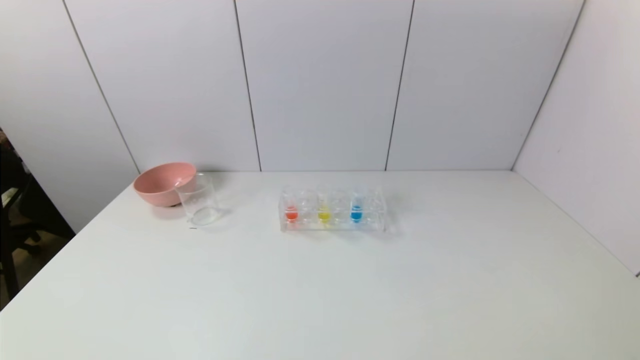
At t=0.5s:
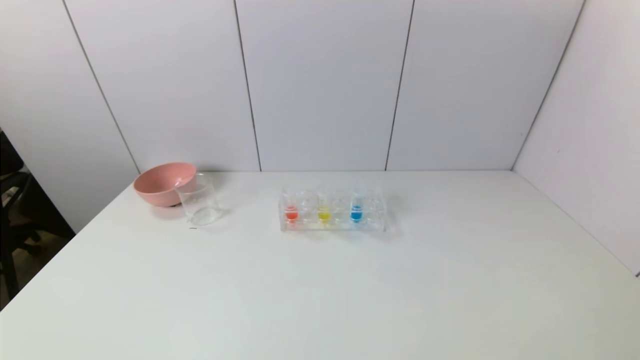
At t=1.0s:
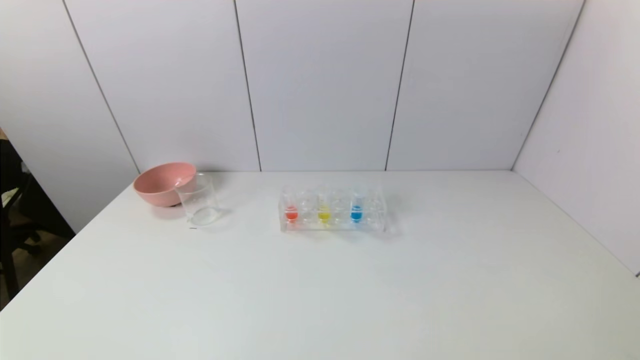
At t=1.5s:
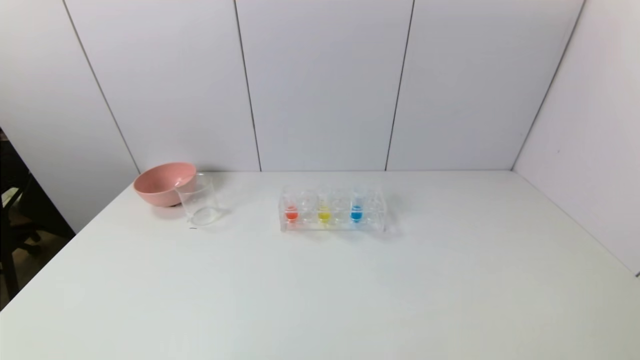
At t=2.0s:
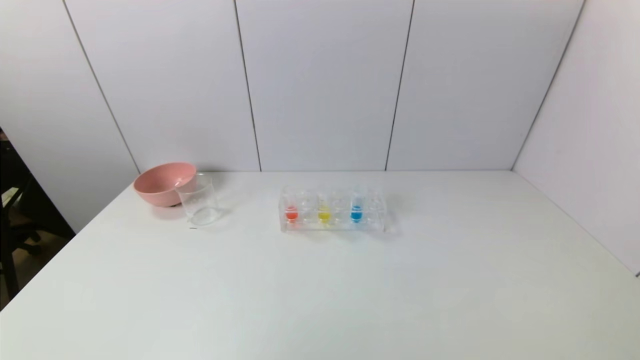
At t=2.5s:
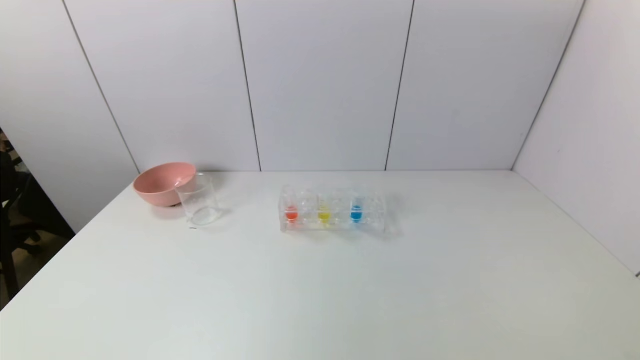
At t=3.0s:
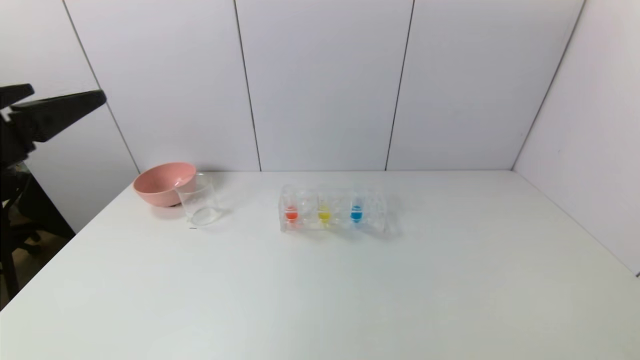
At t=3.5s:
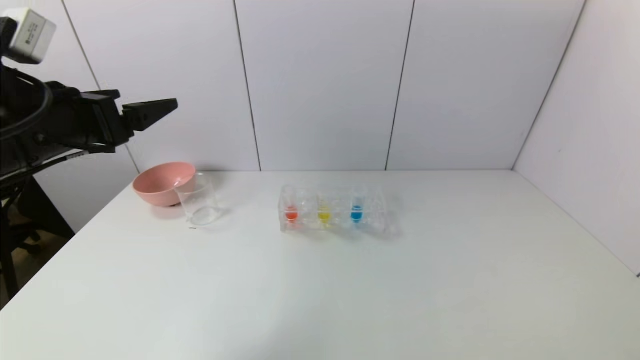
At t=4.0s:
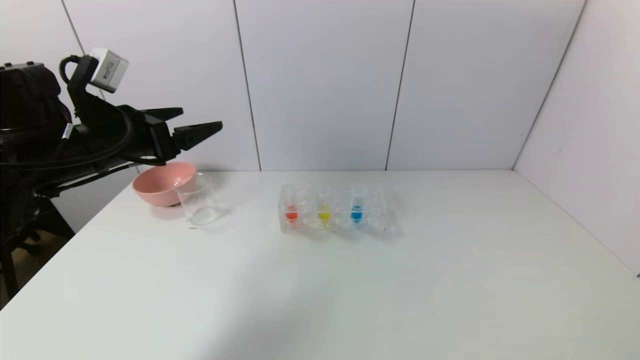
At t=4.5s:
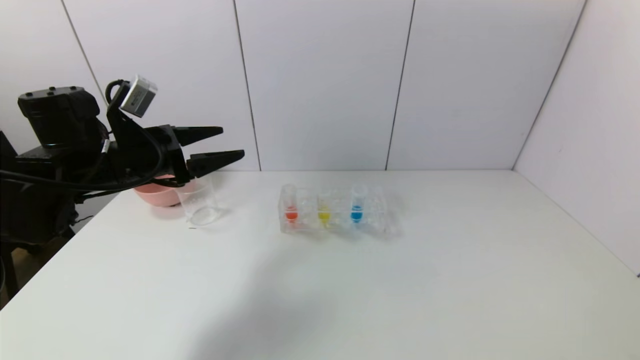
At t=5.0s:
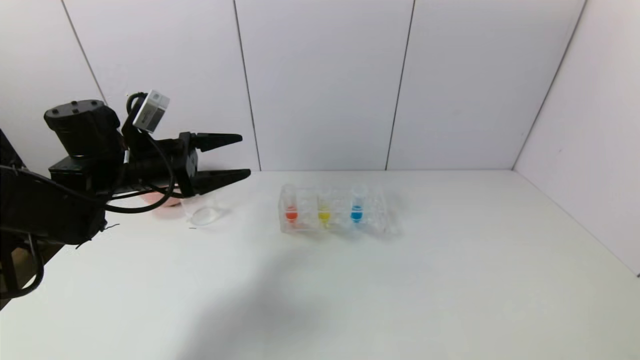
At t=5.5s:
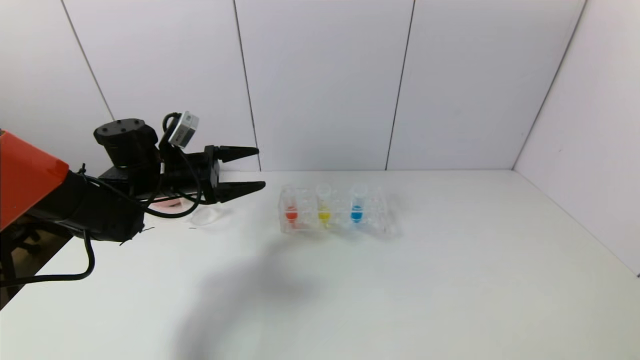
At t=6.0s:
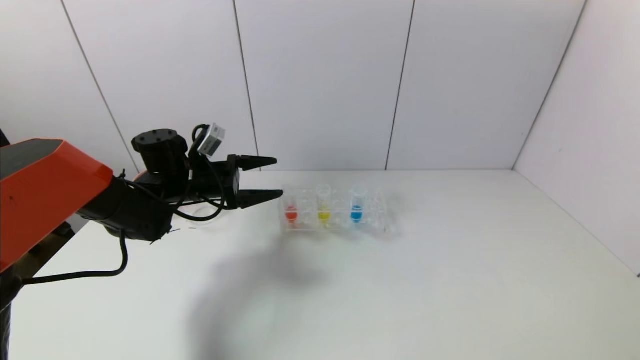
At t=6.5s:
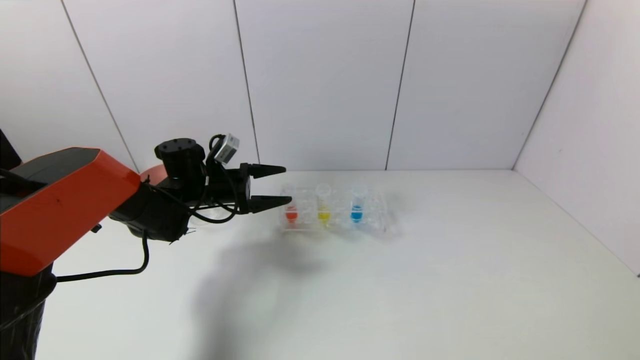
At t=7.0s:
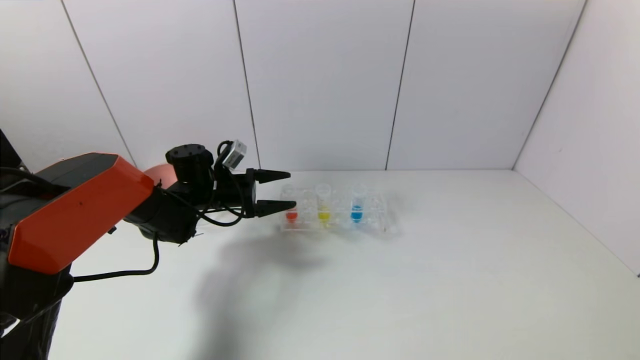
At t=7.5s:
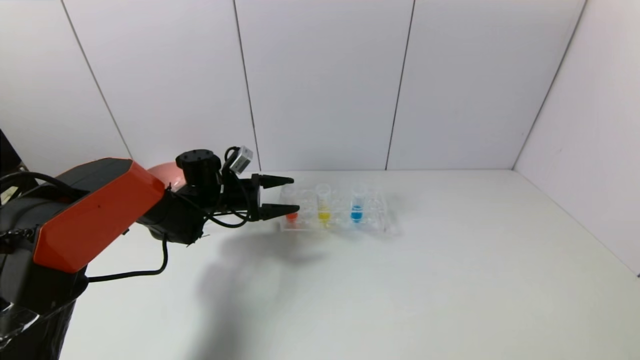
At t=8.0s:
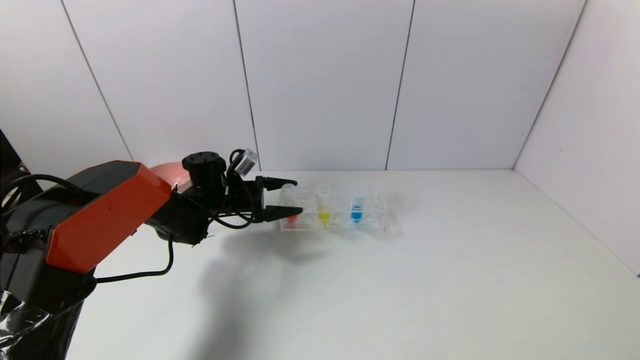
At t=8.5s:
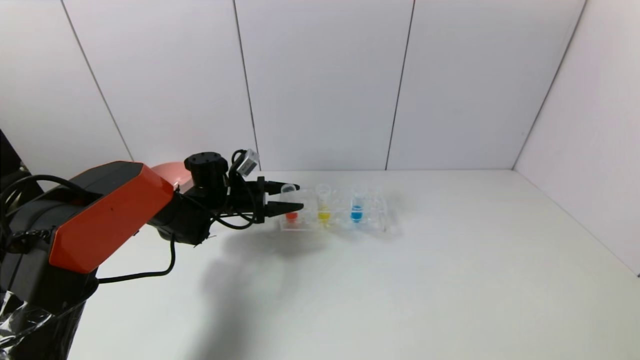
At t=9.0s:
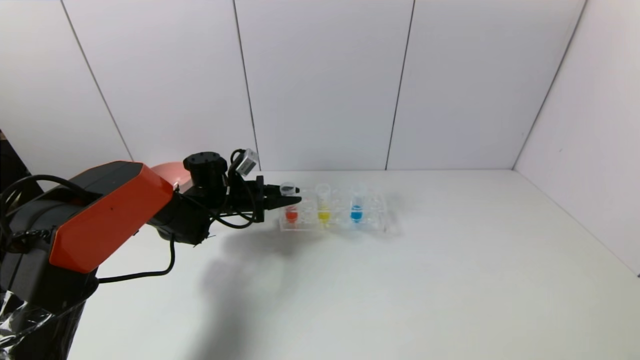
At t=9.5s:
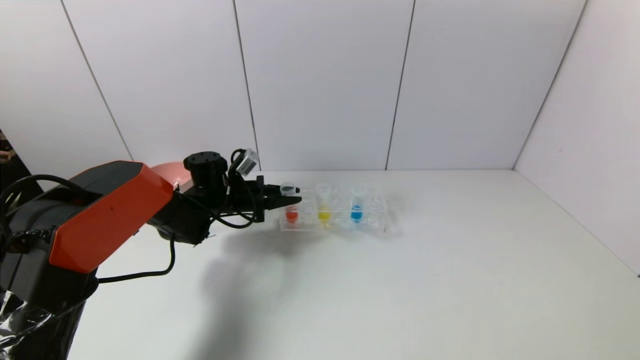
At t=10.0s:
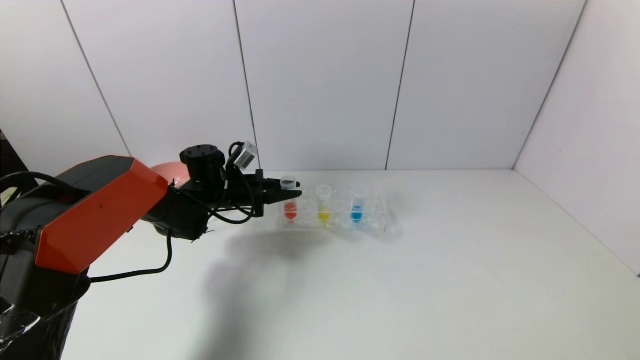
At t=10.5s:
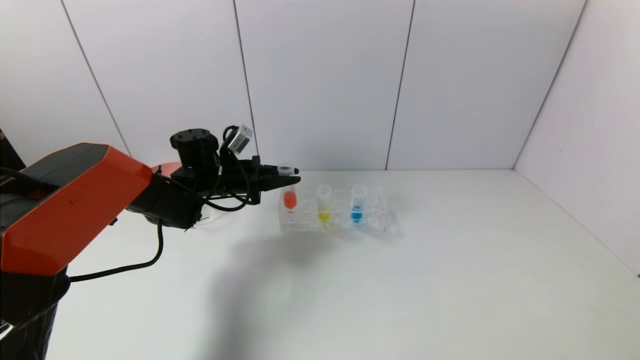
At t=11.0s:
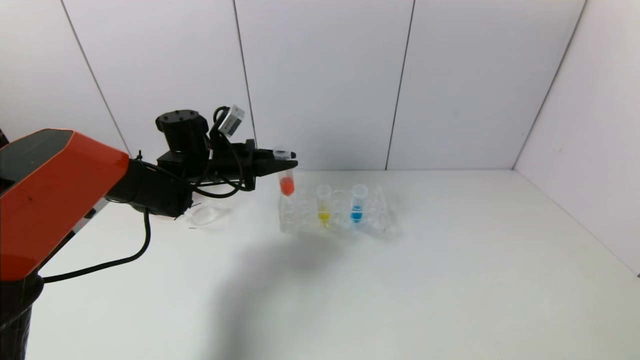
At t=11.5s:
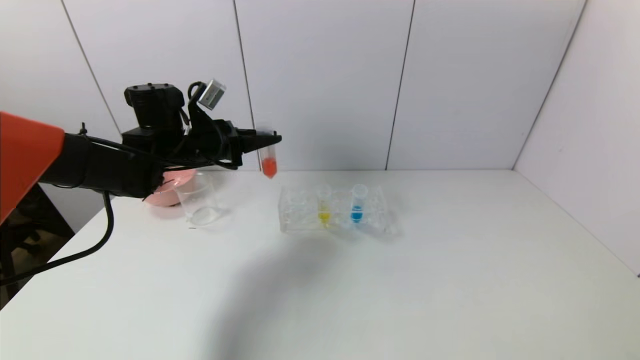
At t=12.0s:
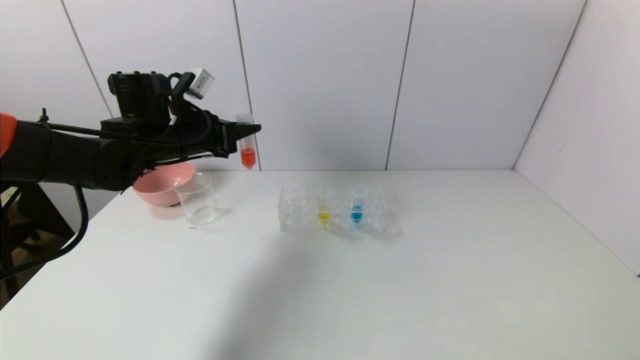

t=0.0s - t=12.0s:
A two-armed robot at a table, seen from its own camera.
Task of the whole recording: pick up the test tube with red pigment and the test tube with blue pigment by grippers and pour them into the container.
Step, t=0.0s - t=9.5s: Grasp the red reagent with the left gripper.
t=2.0s - t=4.0s: The left gripper is displaced forward by approximately 35 cm.
t=4.0s - t=6.0s: The left gripper travels downward and forward by roughly 15 cm.
t=6.0s - t=8.0s: The left gripper is displaced downward by some 5 cm.
t=8.0s - t=10.0s: The left gripper closes its fingers.
t=10.0s - t=12.0s: The left gripper goes some 15 cm upward and backward.

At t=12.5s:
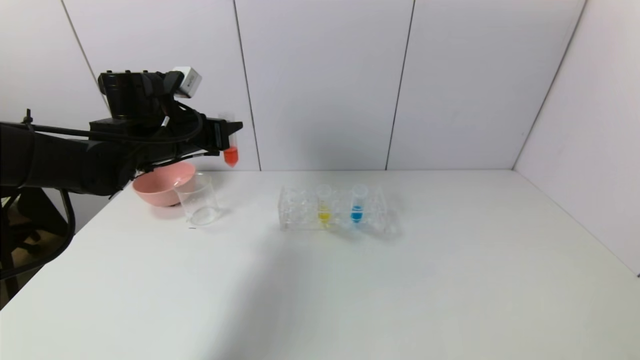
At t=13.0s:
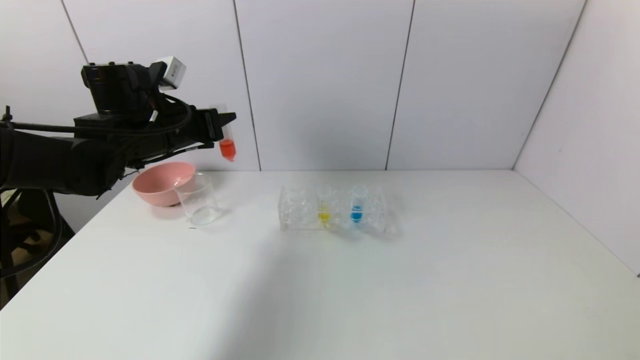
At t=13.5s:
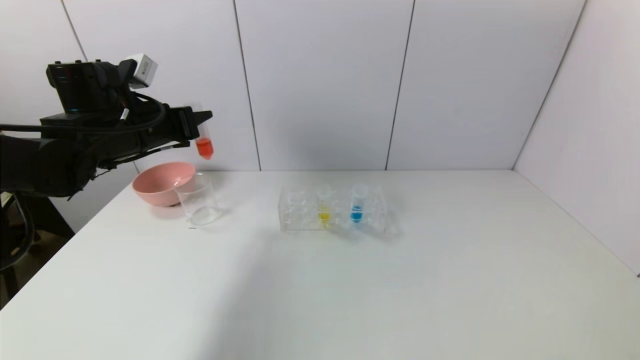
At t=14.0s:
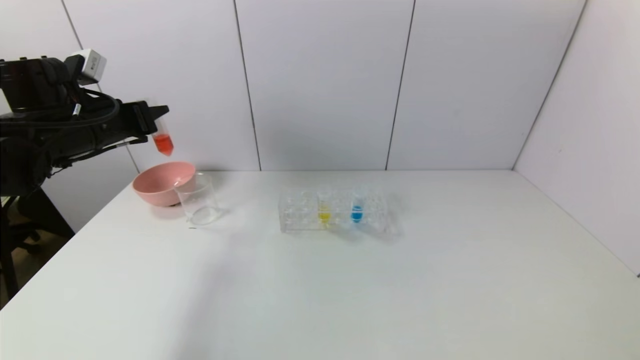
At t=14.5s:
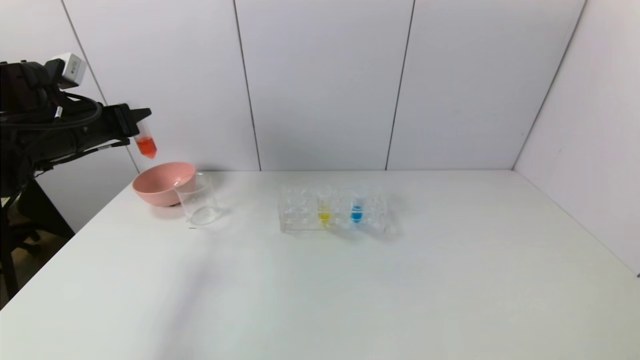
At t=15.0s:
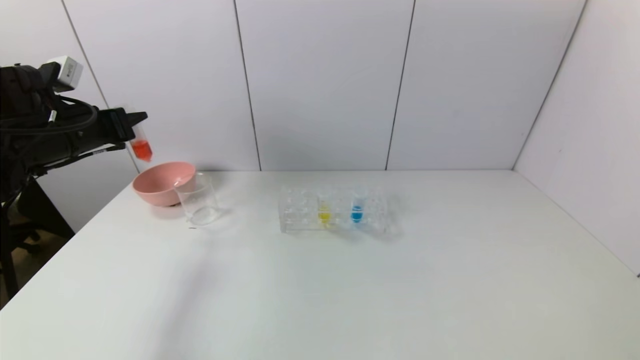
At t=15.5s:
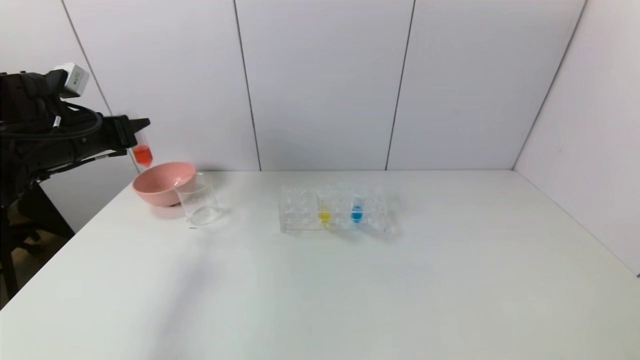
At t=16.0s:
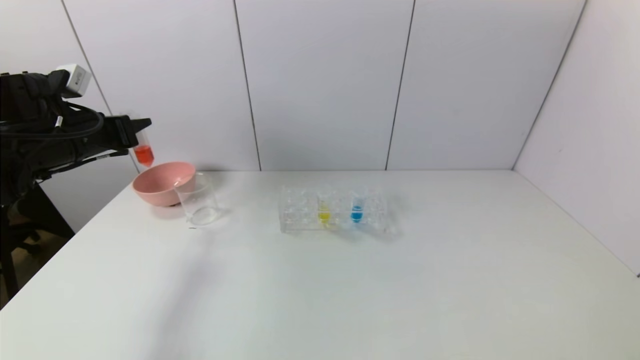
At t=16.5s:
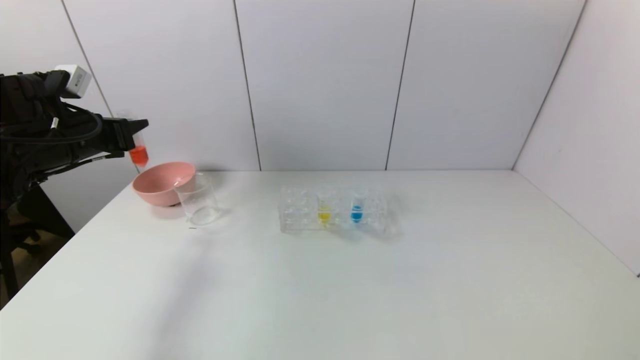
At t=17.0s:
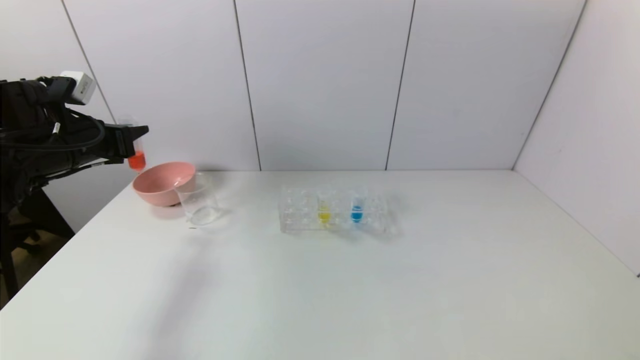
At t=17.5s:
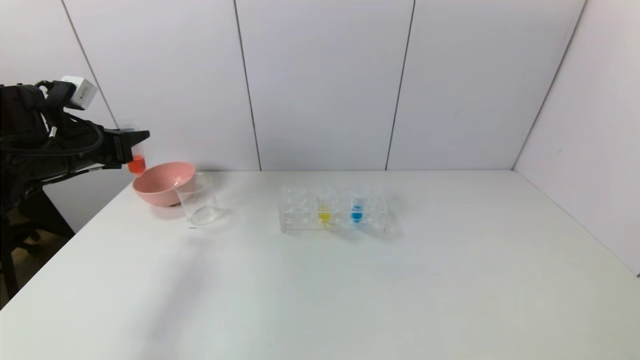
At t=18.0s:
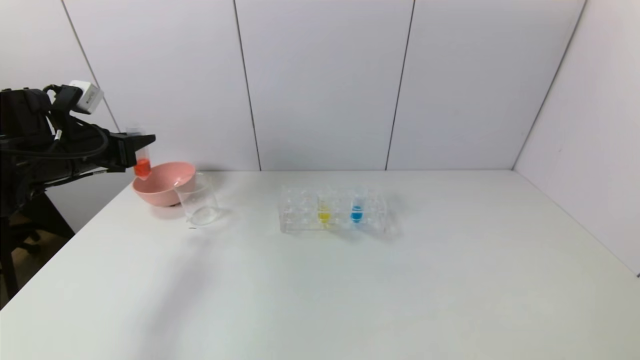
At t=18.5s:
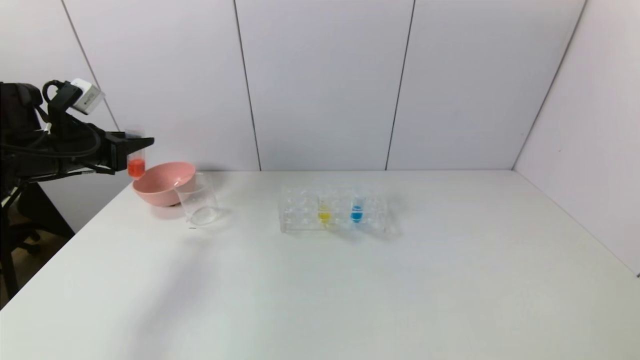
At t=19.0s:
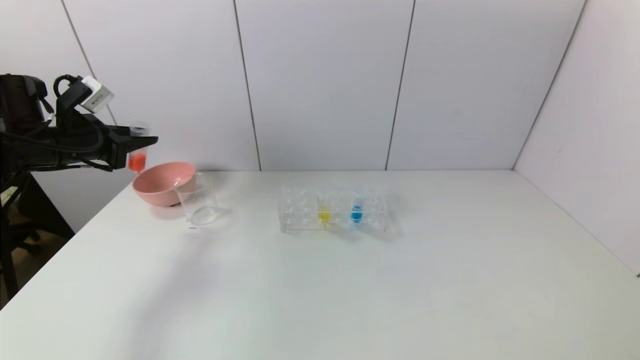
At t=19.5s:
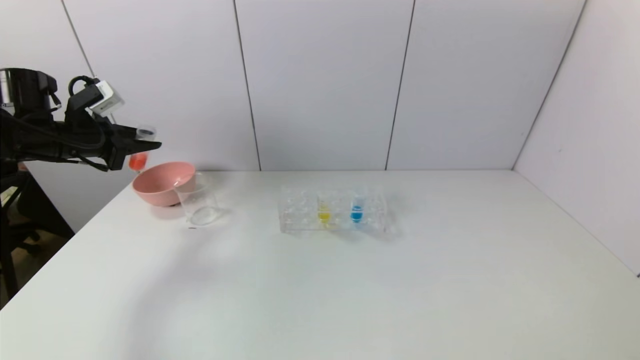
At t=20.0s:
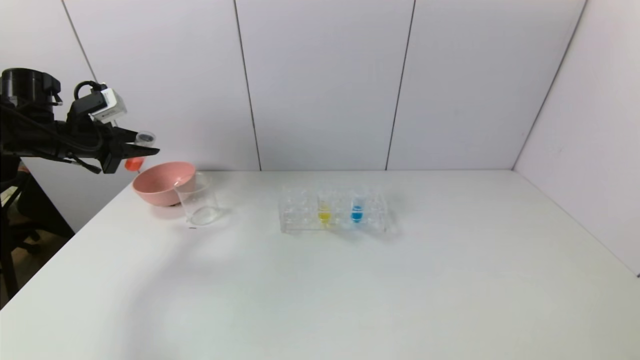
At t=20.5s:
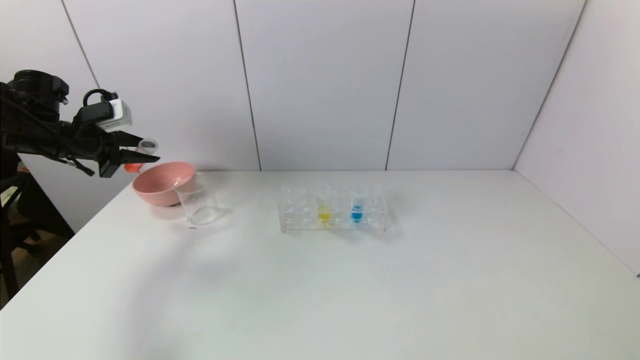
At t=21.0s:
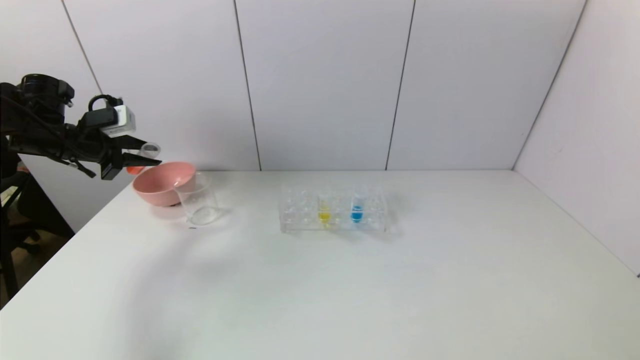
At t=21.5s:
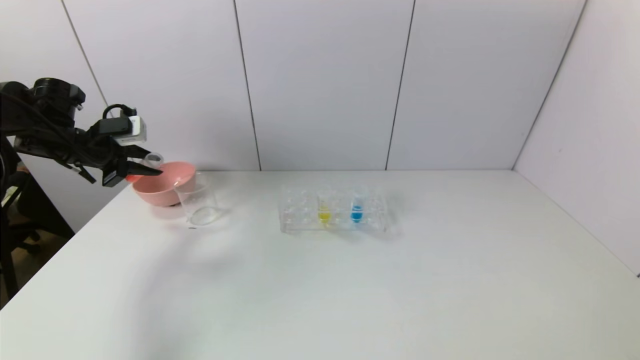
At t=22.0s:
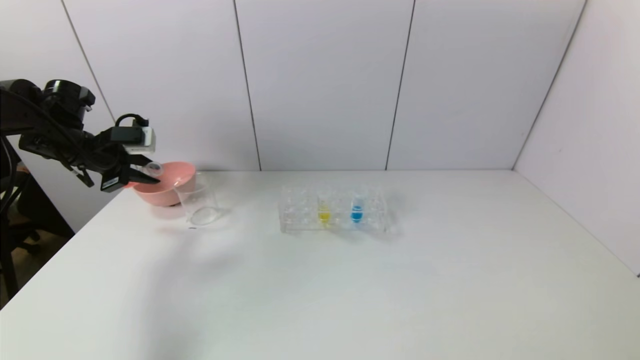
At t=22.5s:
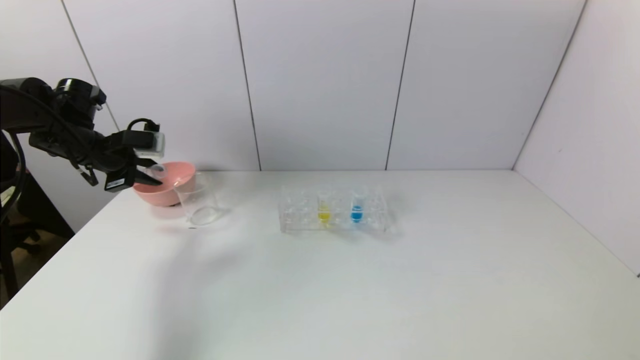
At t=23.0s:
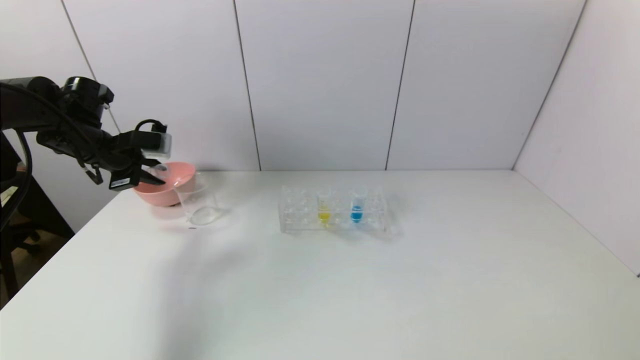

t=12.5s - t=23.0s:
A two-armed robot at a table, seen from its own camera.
Task of the whole recording: pick up the test tube with red pigment and the test tube with blue pigment by grippers and pour them into the container.
t=12.5s - t=14.5s: The left gripper moves to the left, roughly 10 cm.
t=14.5s - t=16.5s: The grippers make only small movements.
